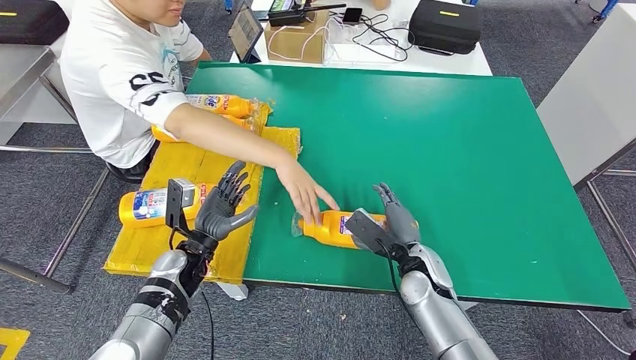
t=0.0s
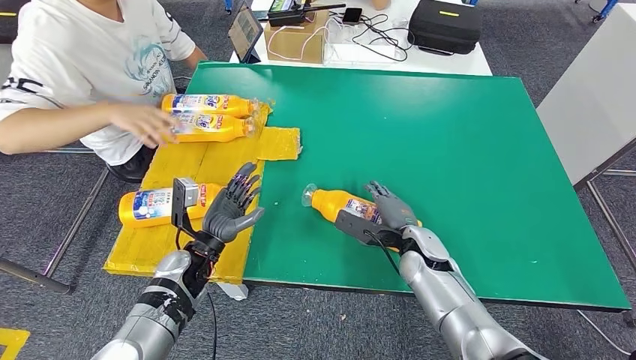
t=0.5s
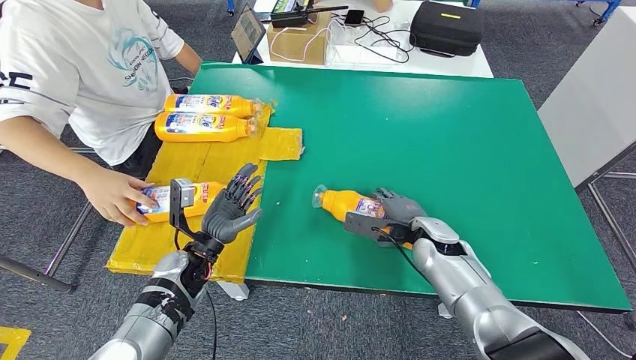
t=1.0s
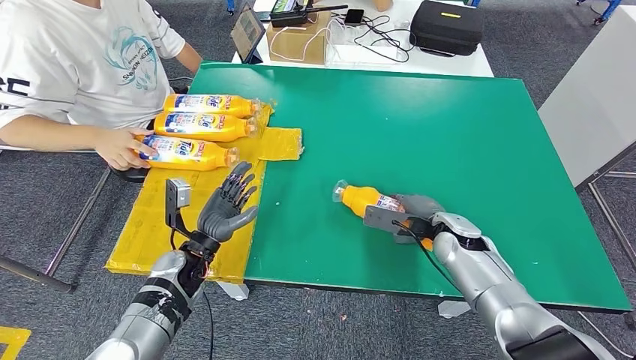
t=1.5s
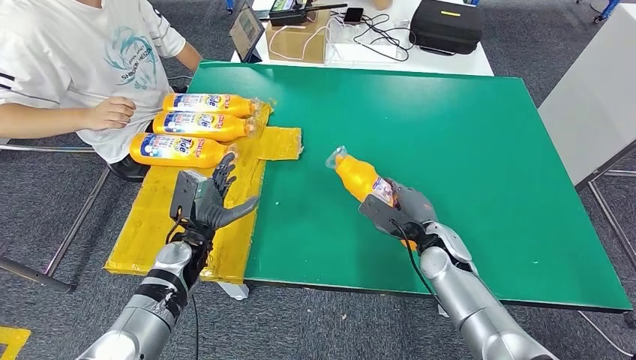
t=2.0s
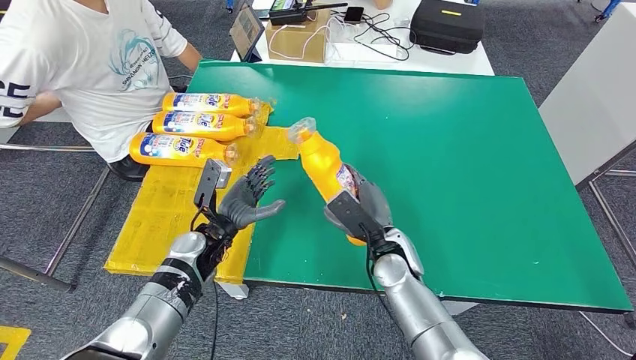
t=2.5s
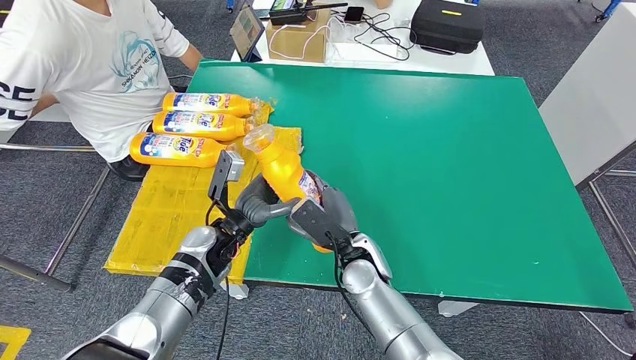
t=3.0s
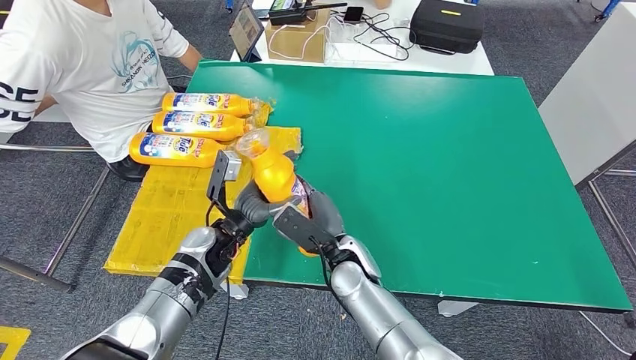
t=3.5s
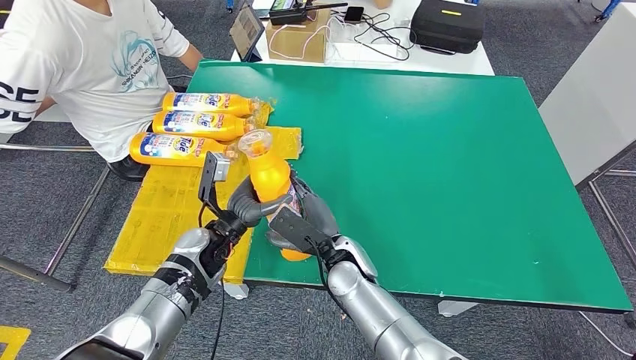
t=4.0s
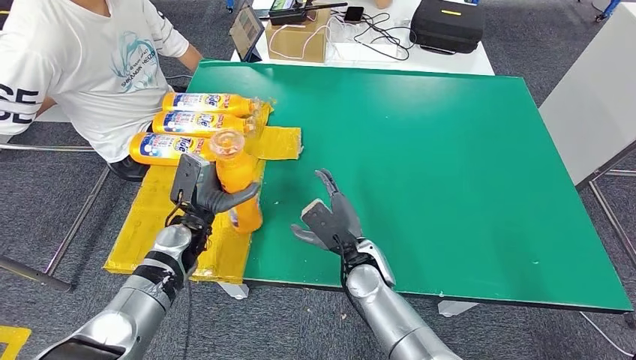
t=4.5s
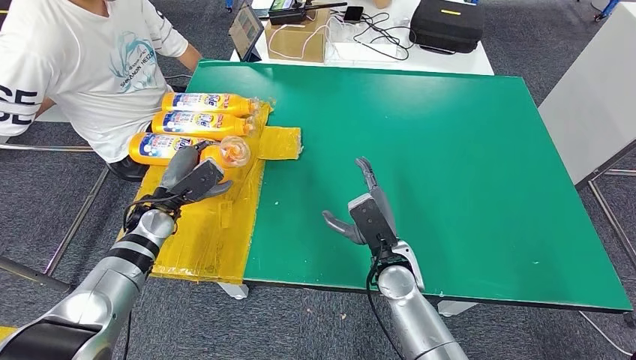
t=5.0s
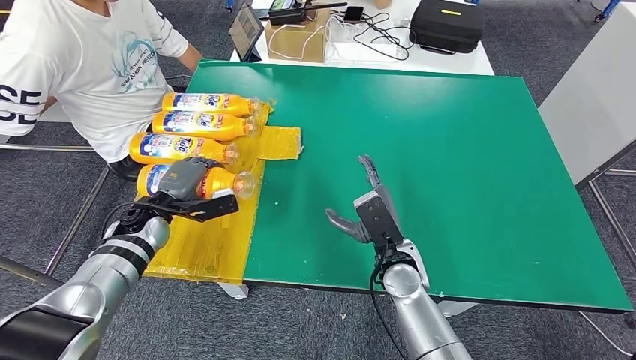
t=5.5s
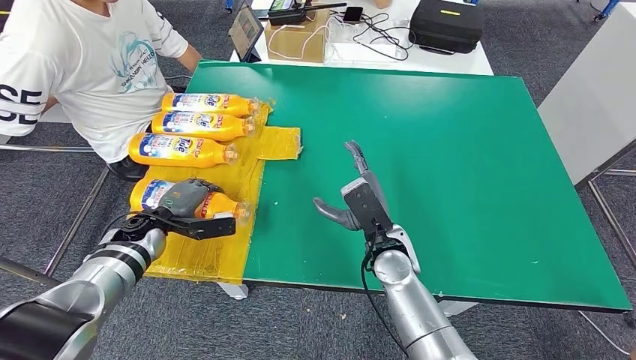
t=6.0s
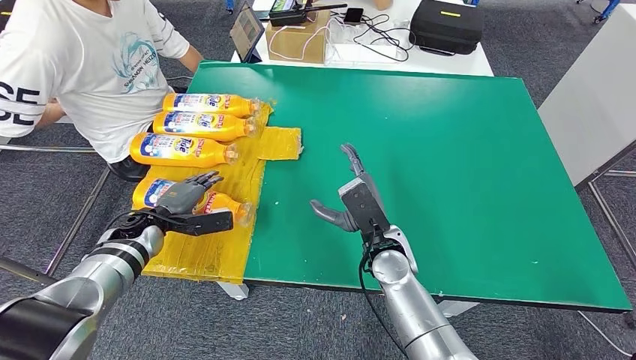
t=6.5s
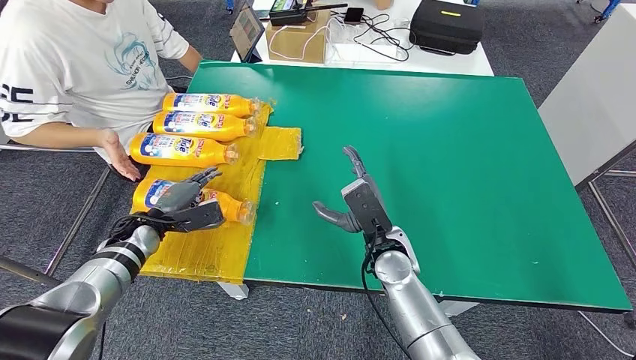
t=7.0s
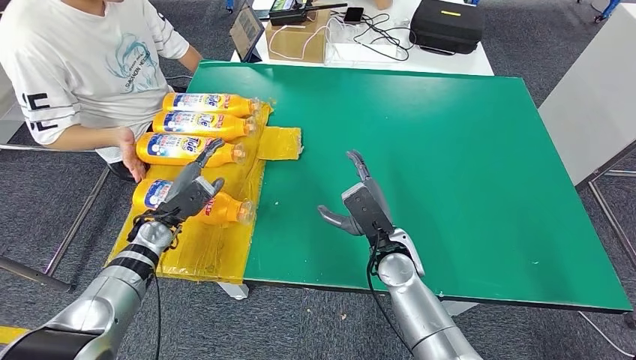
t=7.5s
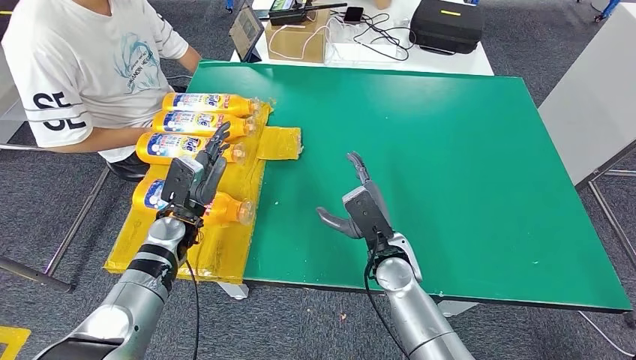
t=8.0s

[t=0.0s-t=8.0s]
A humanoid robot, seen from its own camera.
Step, t=1.5s to t=3.0s: Pick up the bottle from the table.
Step, t=4.0s to t=8.0s: Flip the bottle to face forward.
t=6.0s to t=8.0s: The left hand moves to the right, some 10 cm.

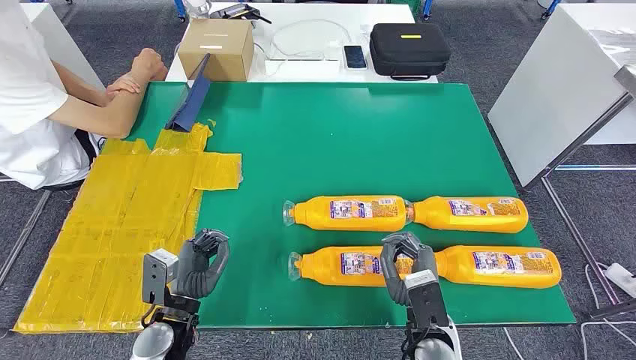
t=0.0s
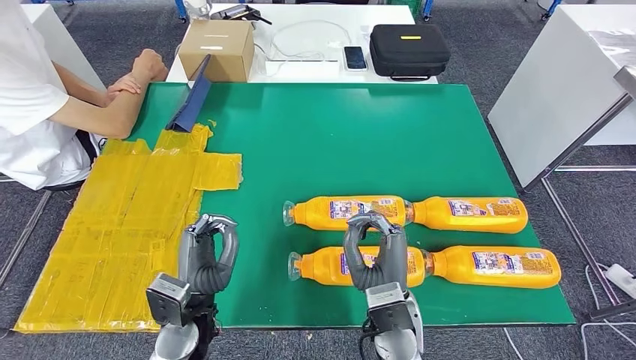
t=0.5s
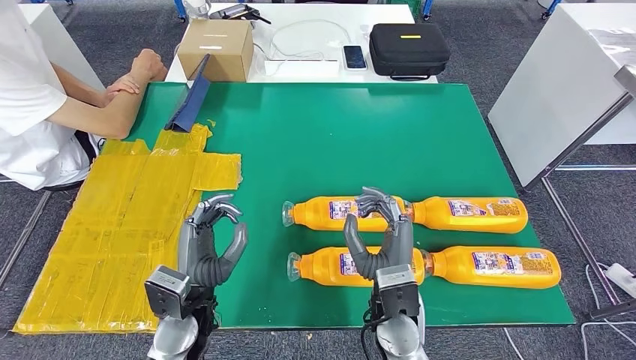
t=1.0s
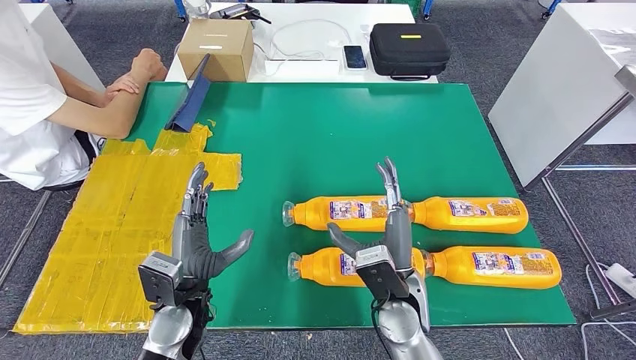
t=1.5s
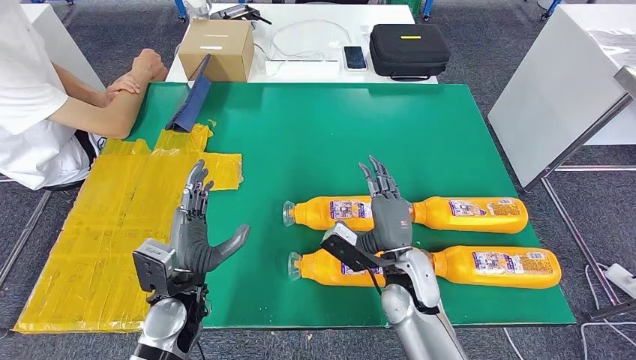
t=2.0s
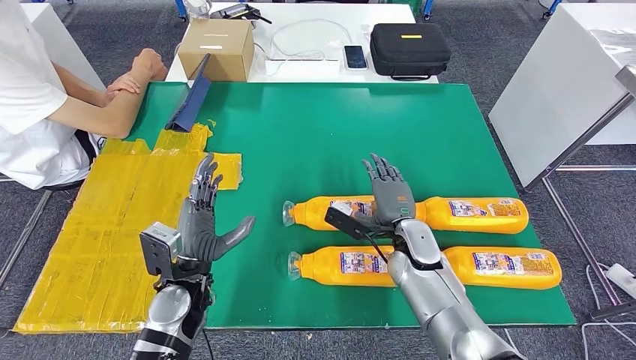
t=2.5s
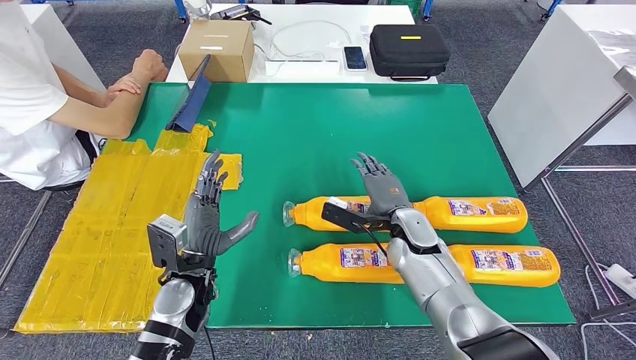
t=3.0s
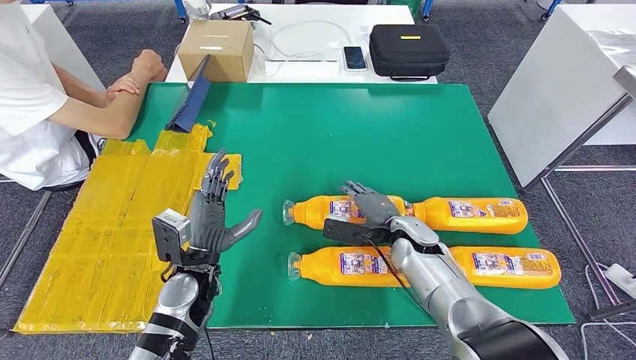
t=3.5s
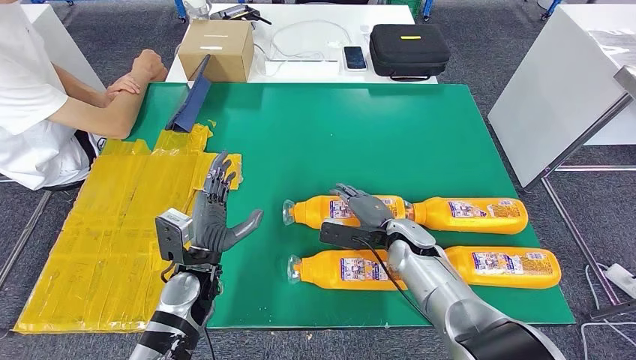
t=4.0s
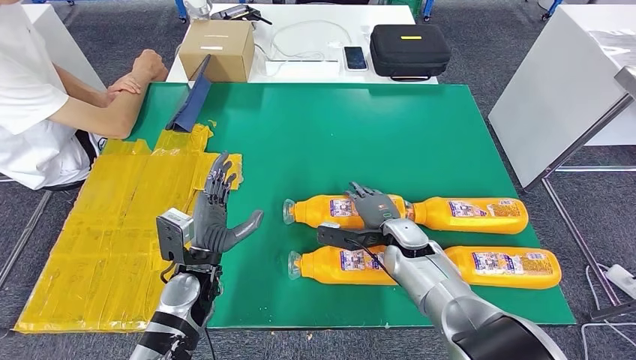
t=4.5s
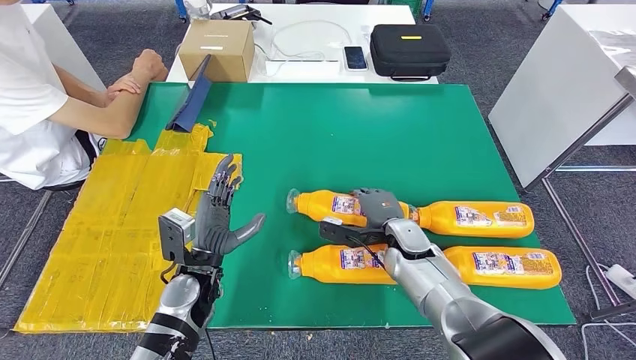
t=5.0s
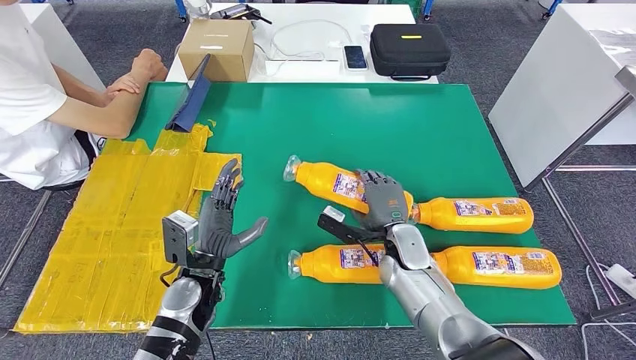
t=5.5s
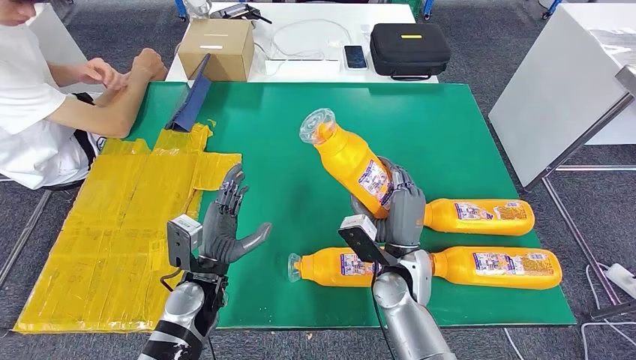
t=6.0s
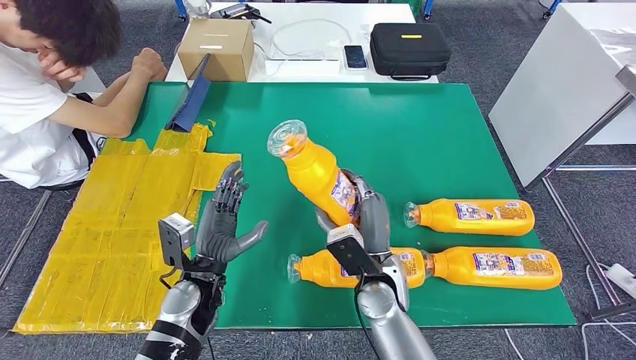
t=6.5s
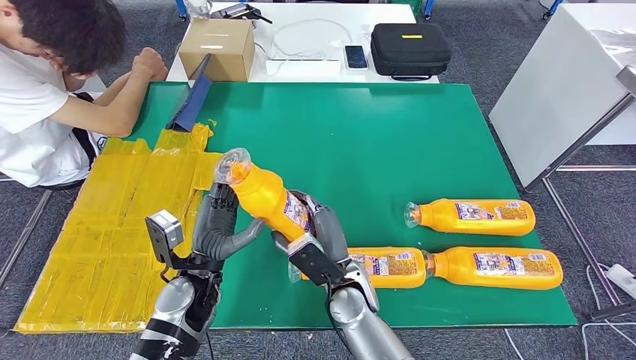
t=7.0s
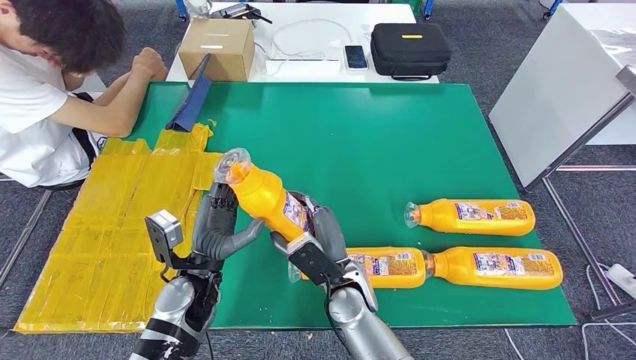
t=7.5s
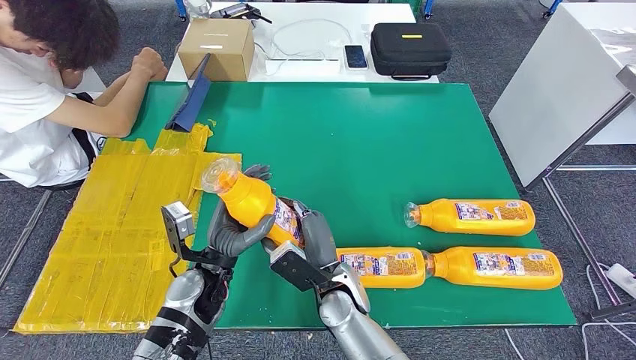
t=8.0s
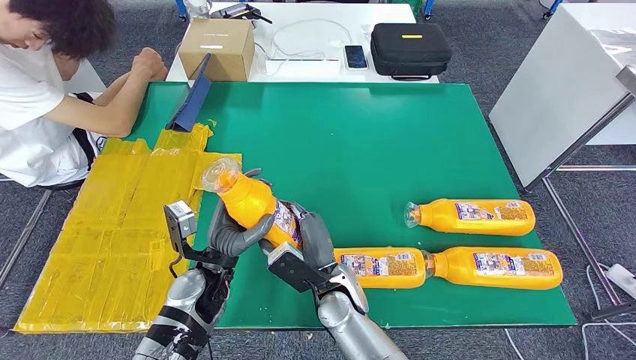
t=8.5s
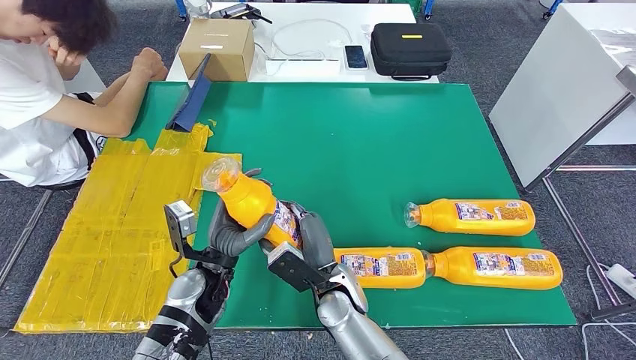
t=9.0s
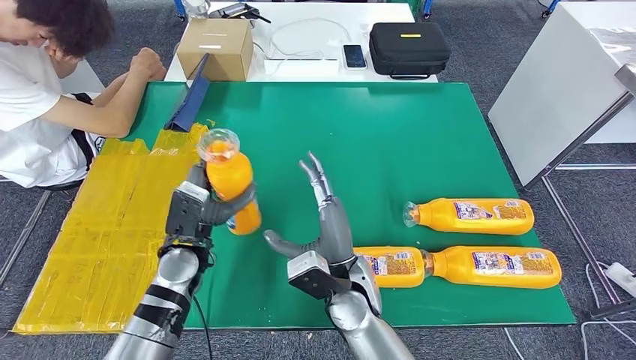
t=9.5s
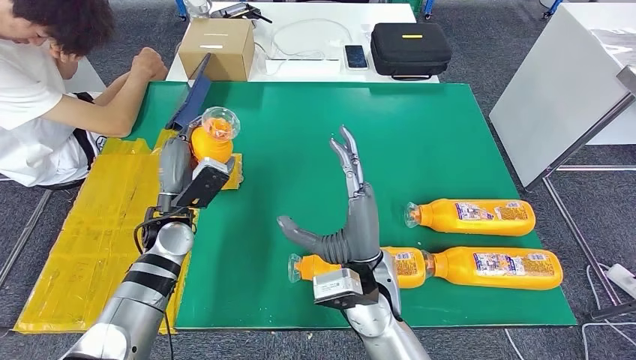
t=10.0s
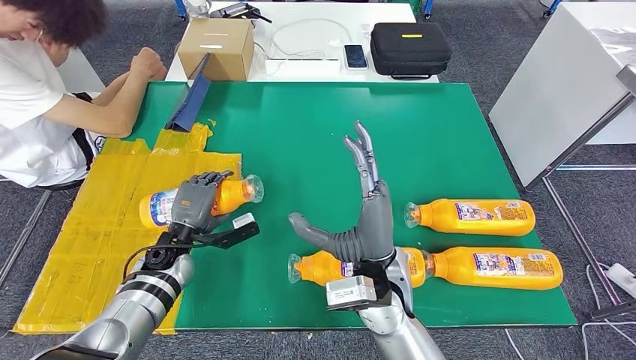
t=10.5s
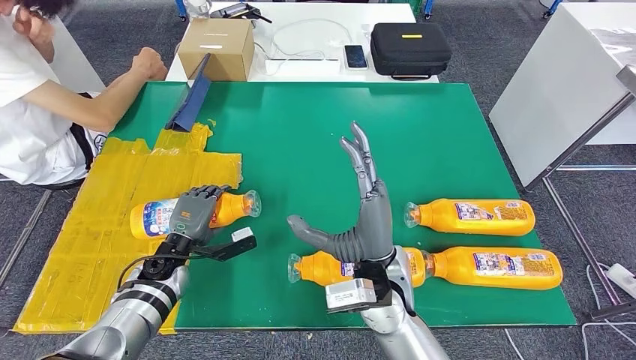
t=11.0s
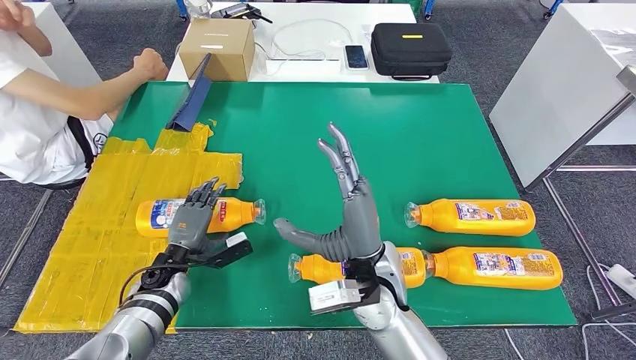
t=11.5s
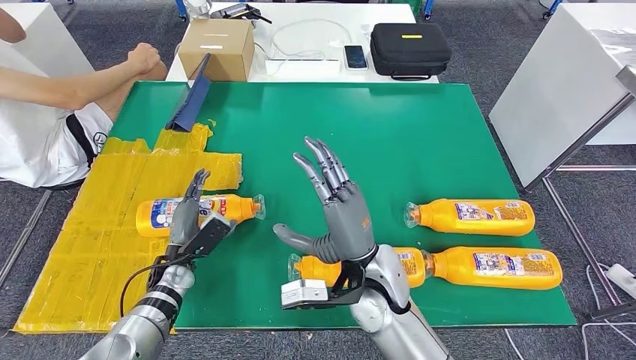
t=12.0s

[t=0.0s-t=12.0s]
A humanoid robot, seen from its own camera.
Step, t=0.0s to t=7.5s: Take the bottle from the table.
t=2.0s to t=4.0s: The right hand goes some 10 cm forward.
t=4.0s to t=6.0s: The right hand is displaced backward by some 10 cm.
t=6.0s to t=8.0s: The right hand moves to the left, roughly 10 cm.
t=8.0s to t=10.0s: The right hand is displaced upward by approximately 10 cm; the left hand shifts some 10 cm forward and to the left.
t=10.0s to t=12.0s: The left hand travels downward by some 15 cm.
